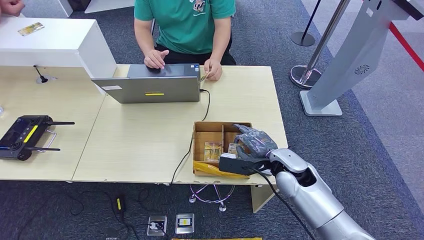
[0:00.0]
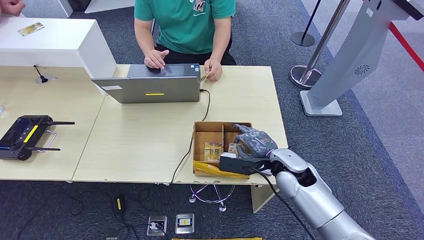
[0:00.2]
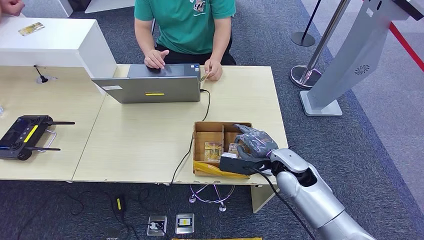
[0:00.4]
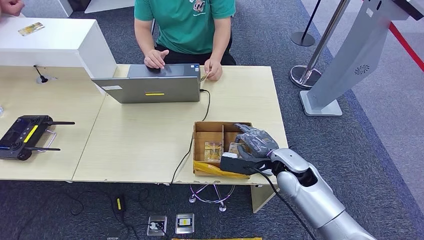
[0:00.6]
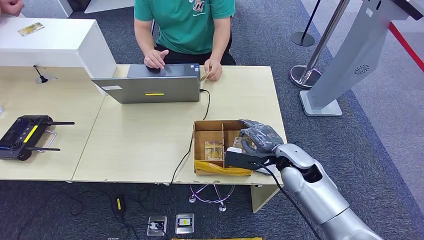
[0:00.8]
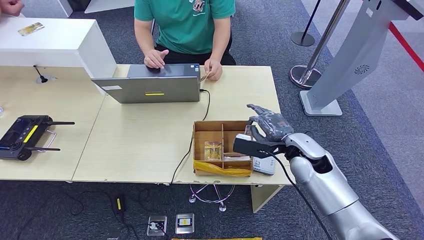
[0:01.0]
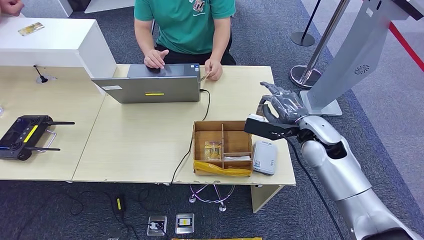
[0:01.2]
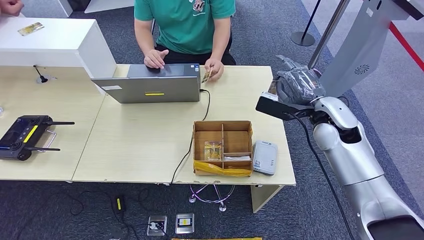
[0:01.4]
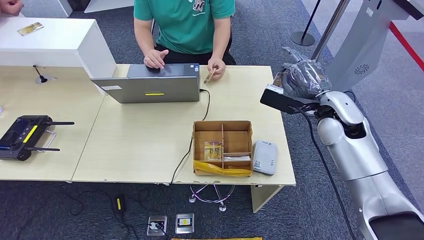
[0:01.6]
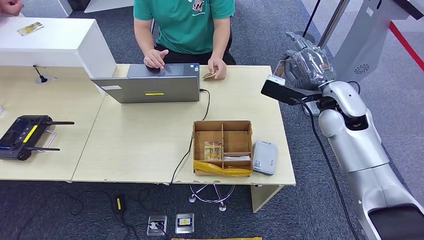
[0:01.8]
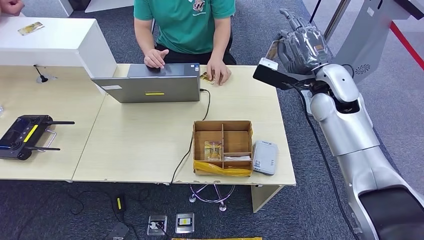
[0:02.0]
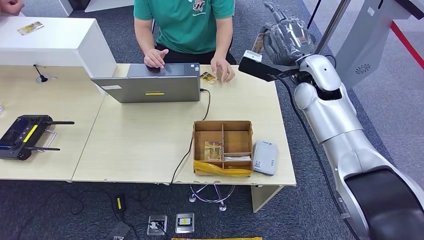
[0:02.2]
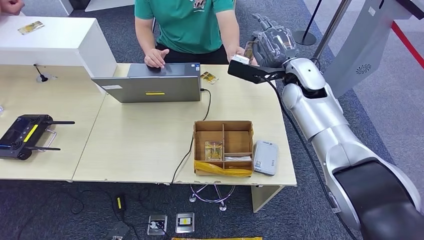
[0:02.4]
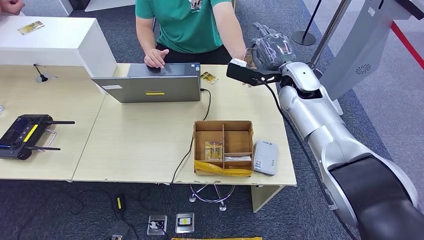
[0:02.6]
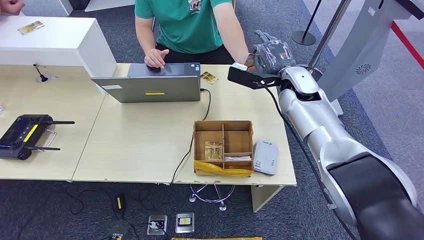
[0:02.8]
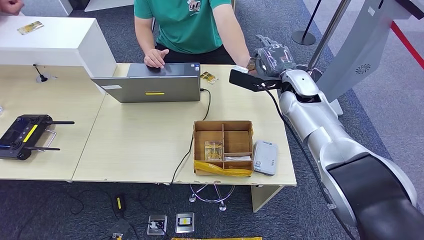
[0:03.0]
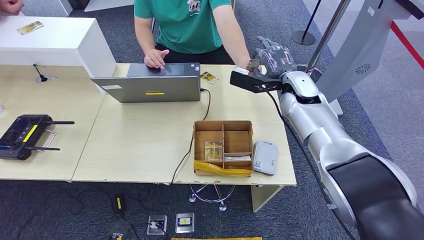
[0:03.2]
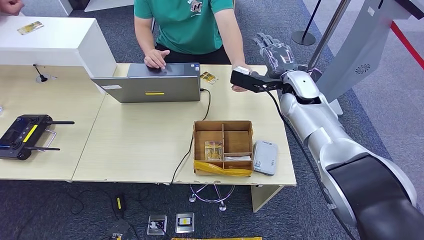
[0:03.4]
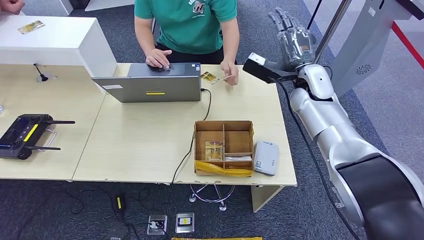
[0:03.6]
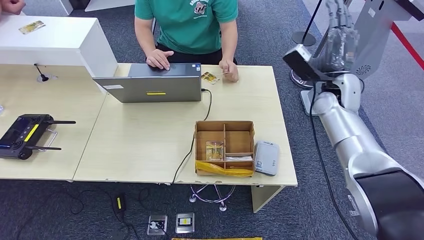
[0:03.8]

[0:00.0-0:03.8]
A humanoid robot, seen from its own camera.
Step, 0:01.8 to 0:03.8: Hand the room key to the person.
0:00.0 to 0:01.2: The right hand heads upward and to the right, covering about 10 cm.
0:01.2 to 0:02.6: The right hand heads forward and upward, covering roughly 15 cm.
0:02.6 to 0:03.8: The right hand is displaced to the right by some 10 cm.
